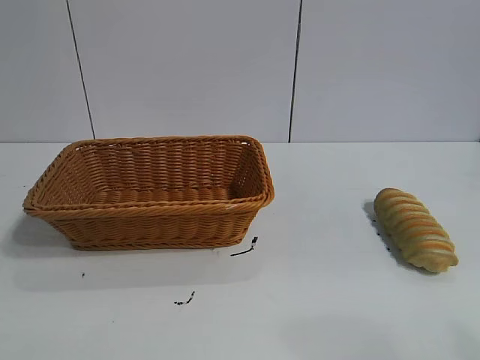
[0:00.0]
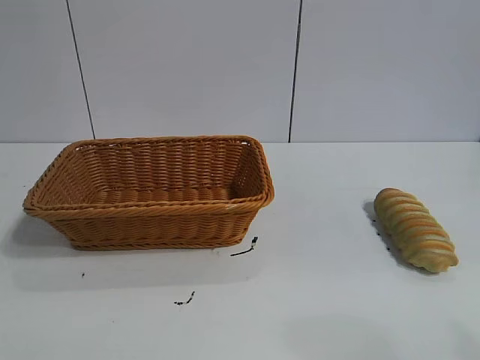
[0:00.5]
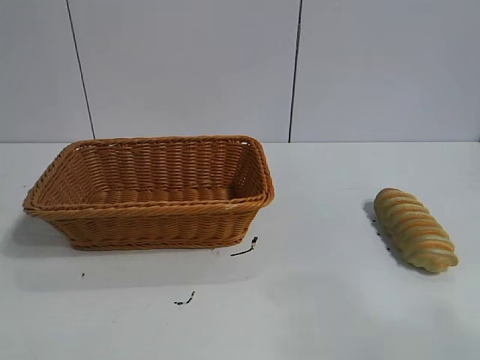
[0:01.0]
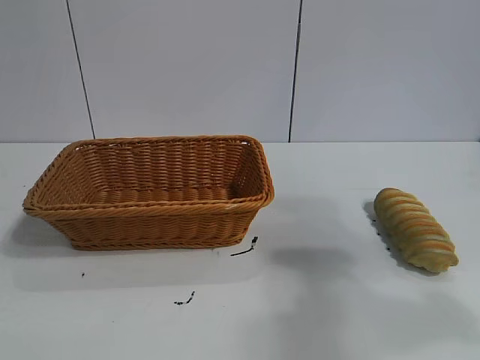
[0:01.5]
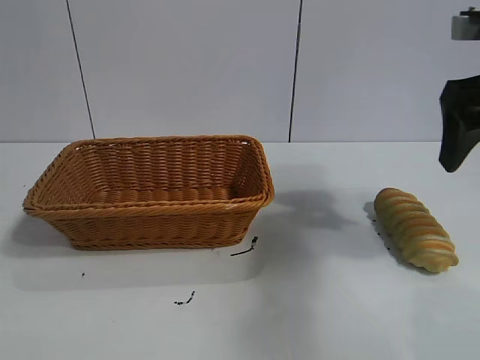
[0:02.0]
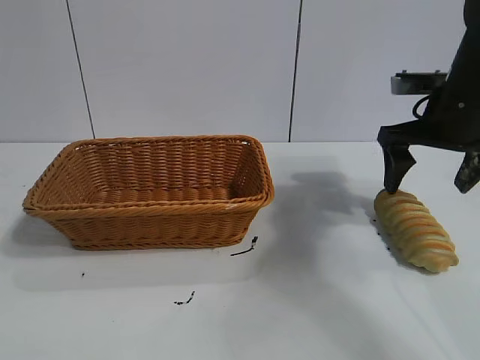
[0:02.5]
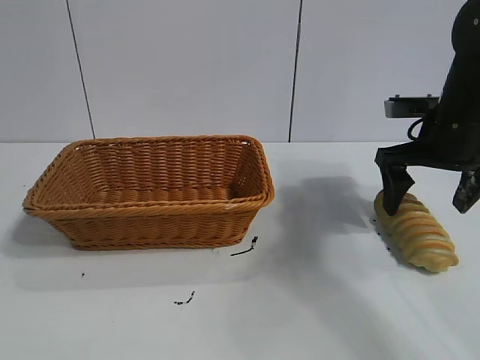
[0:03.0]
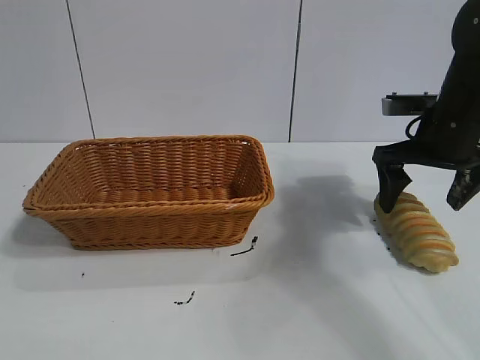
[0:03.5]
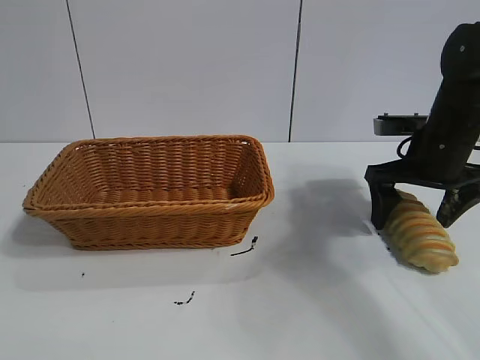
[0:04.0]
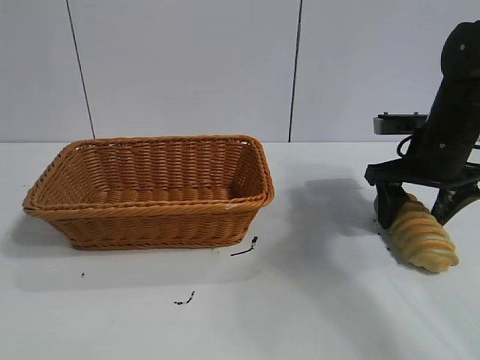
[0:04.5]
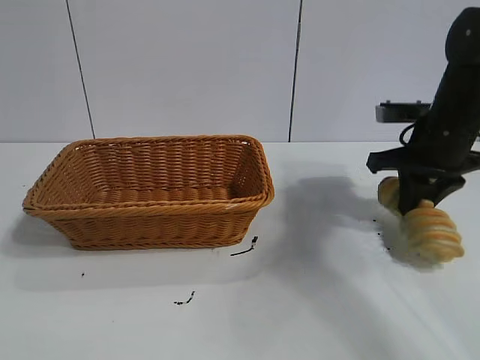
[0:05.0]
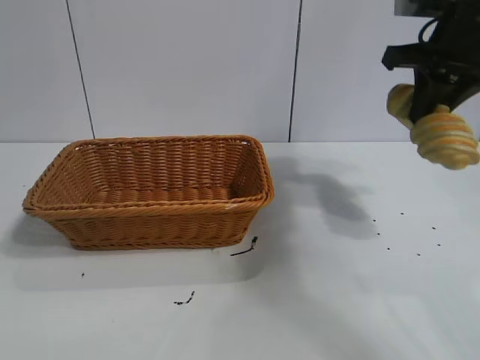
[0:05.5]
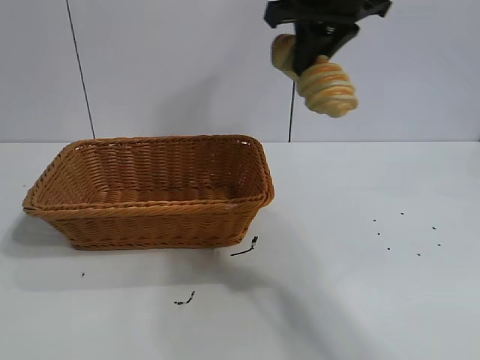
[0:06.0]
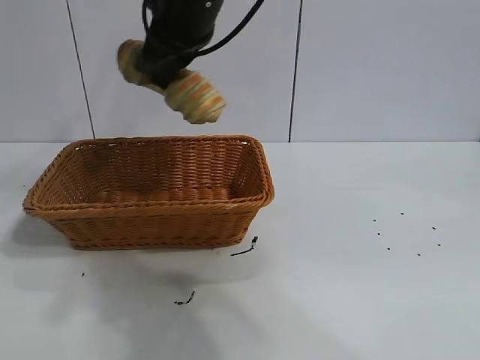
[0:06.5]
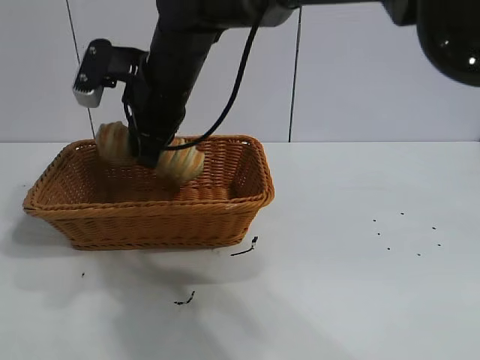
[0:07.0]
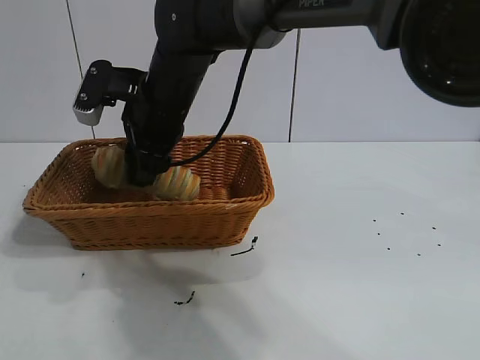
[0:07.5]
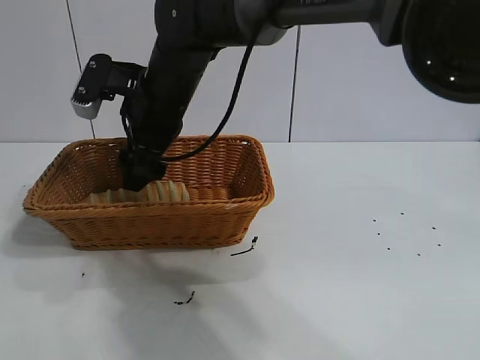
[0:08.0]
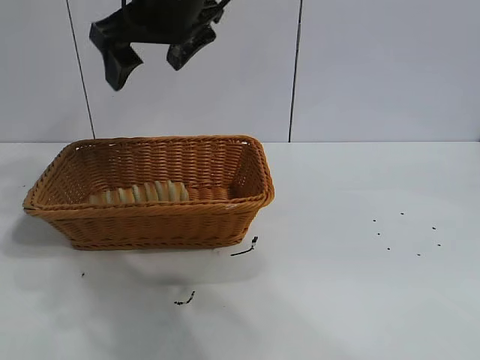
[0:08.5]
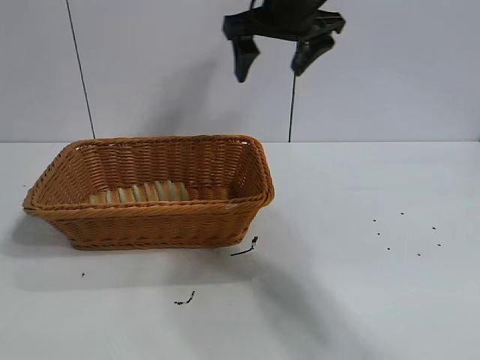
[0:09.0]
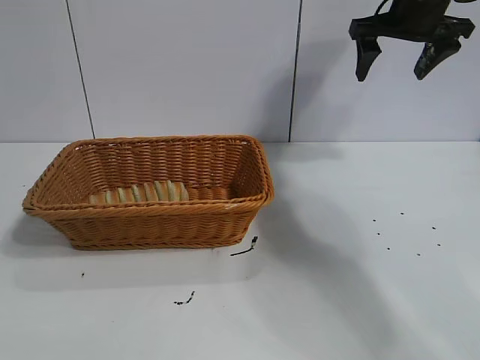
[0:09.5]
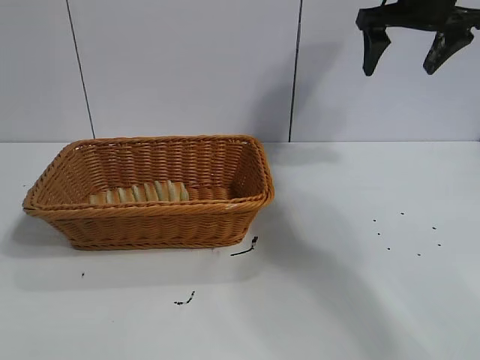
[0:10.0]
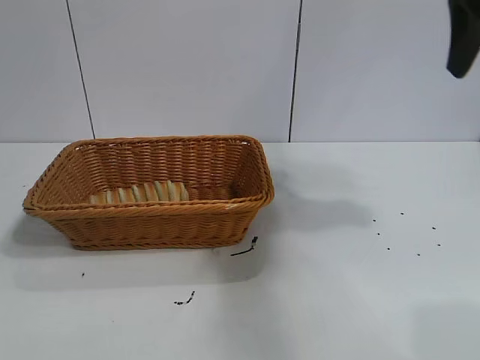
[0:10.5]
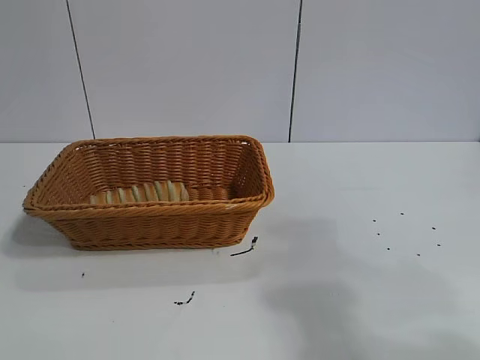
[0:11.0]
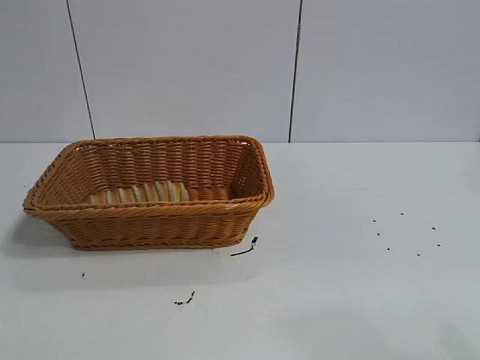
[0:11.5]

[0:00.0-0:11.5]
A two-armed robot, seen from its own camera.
Task of the whole recording: pick up the long bread and put it into the basket.
Step, 0:02.0 to 0:04.5: Grasp the long bread with right gripper.
Step, 0:05.5 to 0:08.0: Place the long bread in the basket with right gripper.
